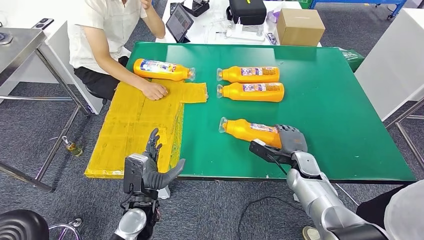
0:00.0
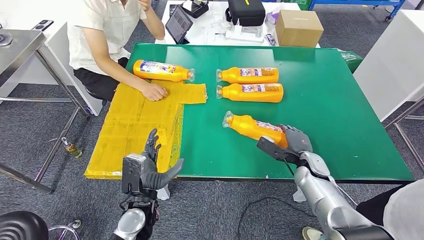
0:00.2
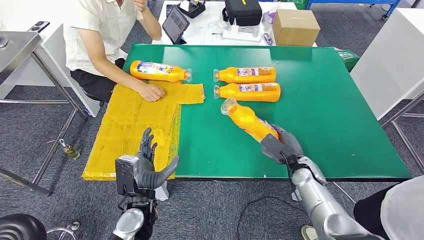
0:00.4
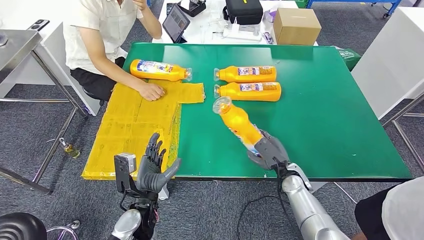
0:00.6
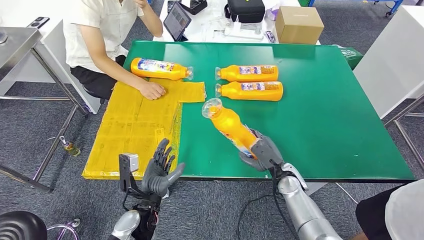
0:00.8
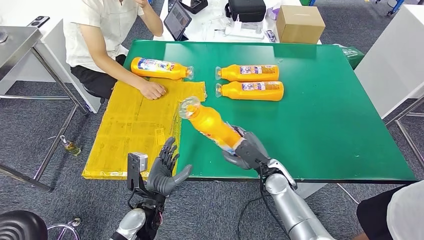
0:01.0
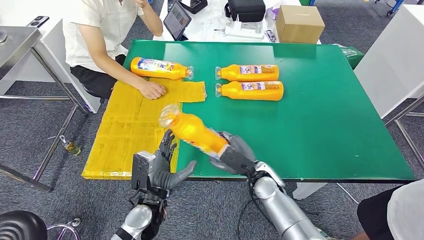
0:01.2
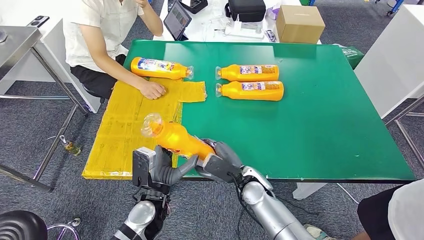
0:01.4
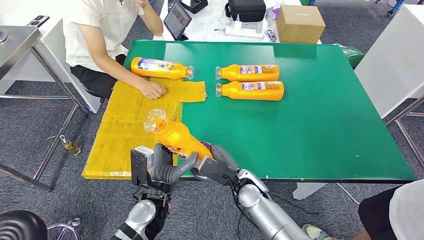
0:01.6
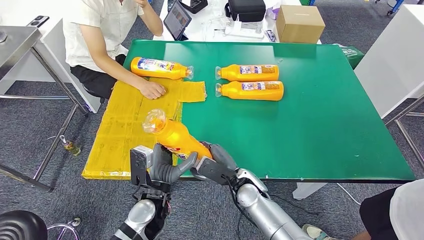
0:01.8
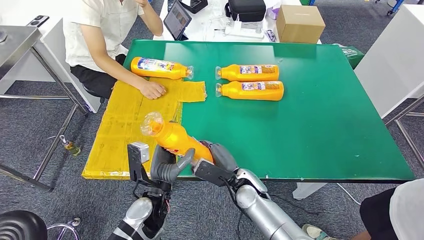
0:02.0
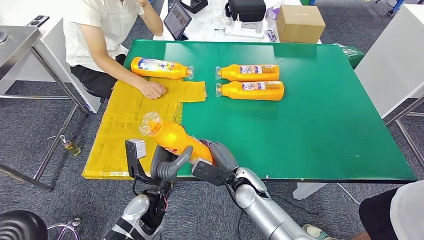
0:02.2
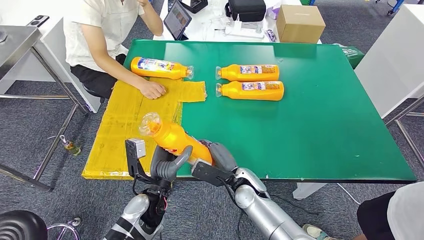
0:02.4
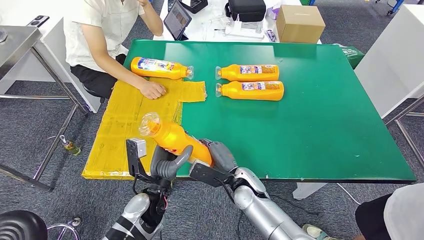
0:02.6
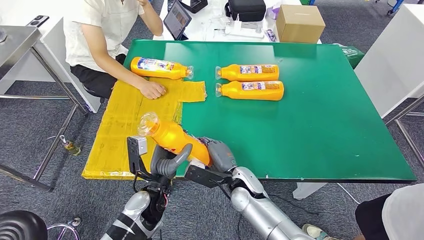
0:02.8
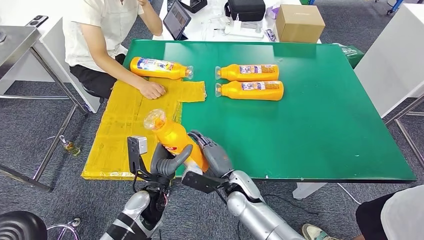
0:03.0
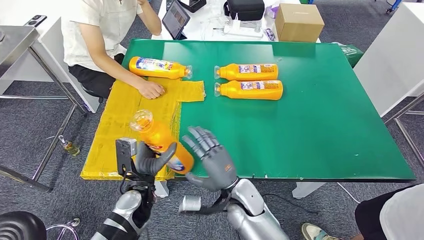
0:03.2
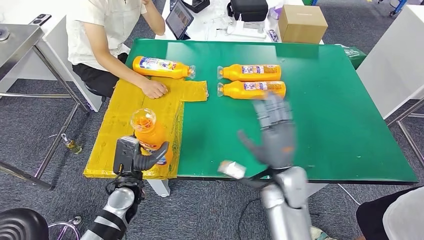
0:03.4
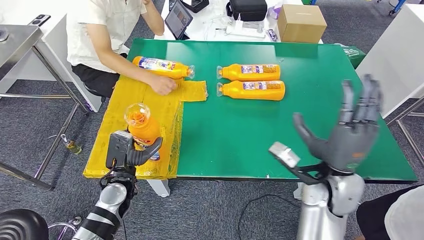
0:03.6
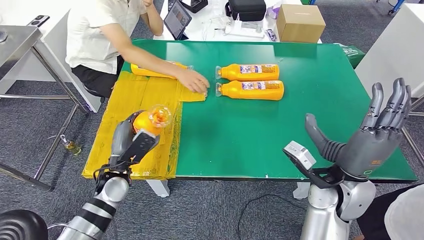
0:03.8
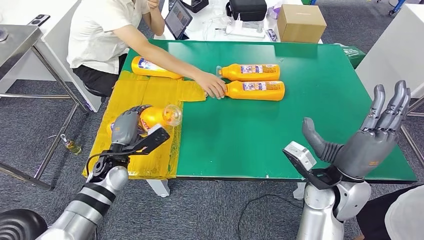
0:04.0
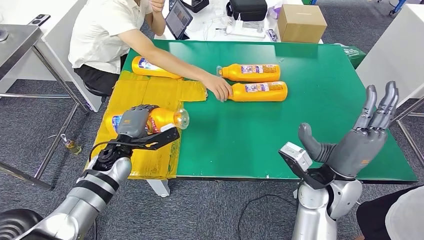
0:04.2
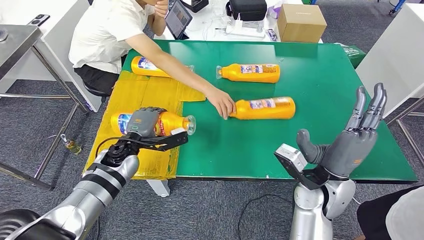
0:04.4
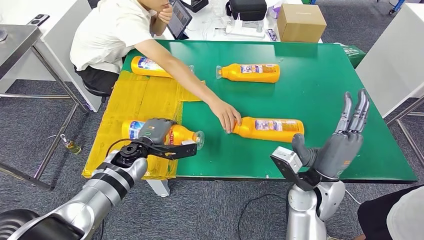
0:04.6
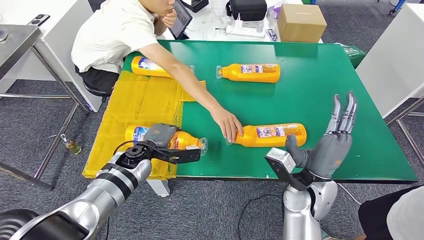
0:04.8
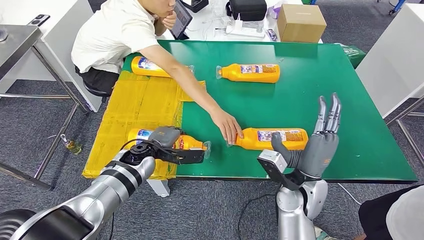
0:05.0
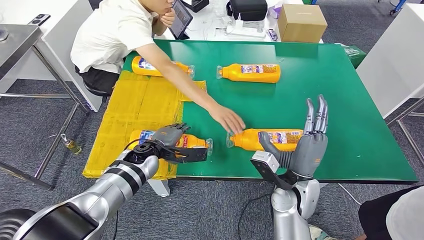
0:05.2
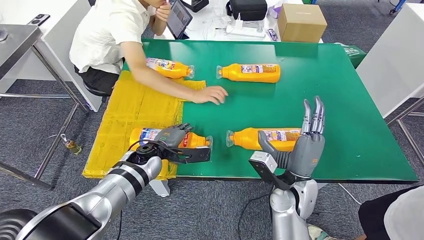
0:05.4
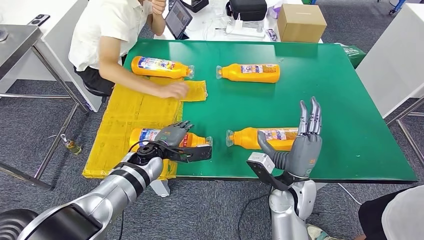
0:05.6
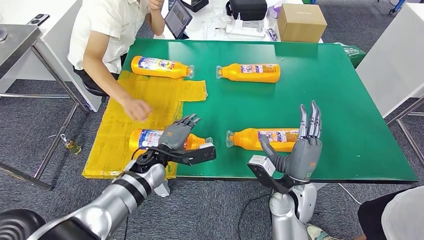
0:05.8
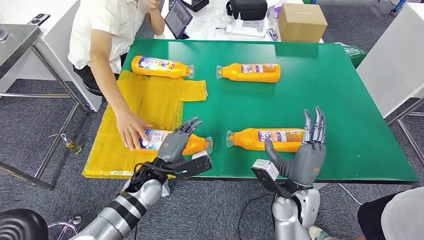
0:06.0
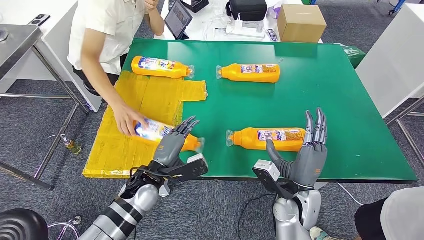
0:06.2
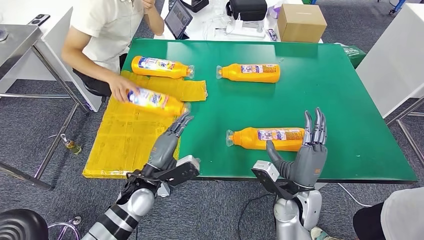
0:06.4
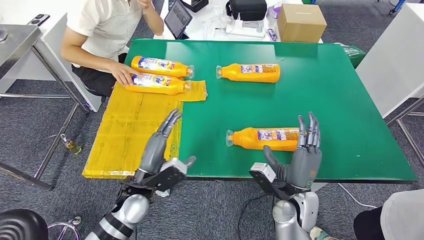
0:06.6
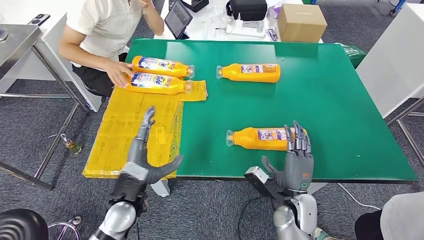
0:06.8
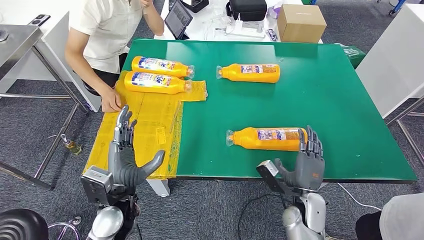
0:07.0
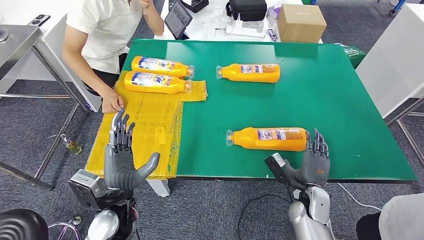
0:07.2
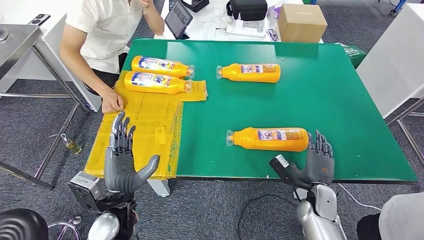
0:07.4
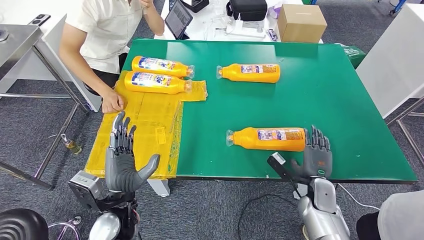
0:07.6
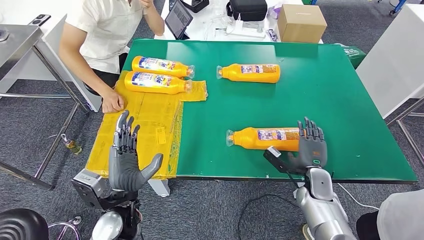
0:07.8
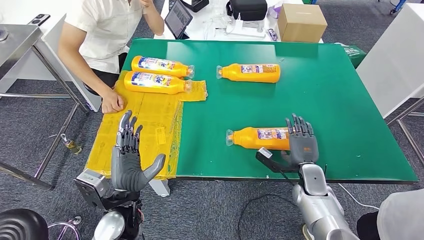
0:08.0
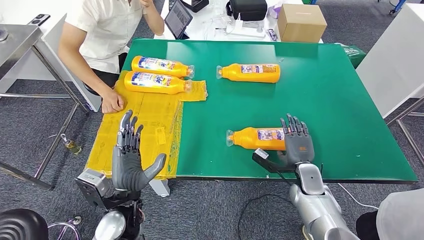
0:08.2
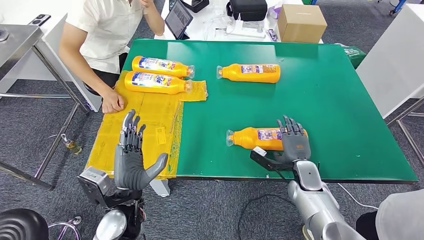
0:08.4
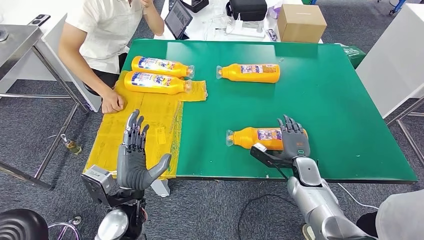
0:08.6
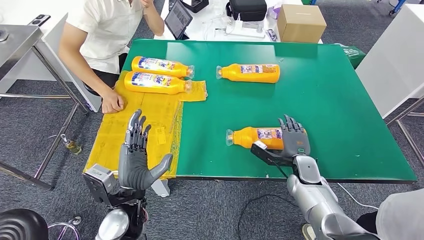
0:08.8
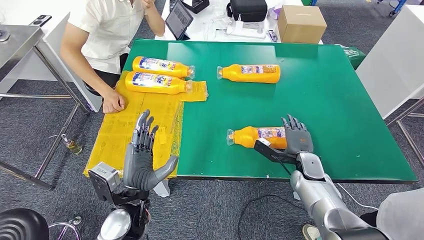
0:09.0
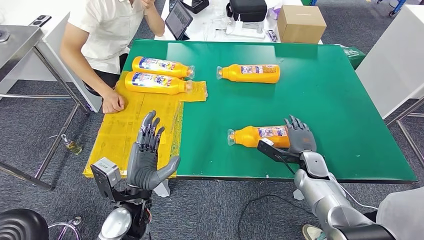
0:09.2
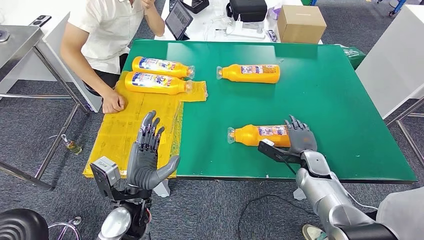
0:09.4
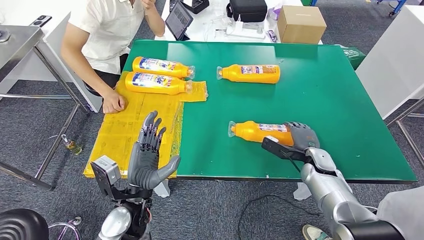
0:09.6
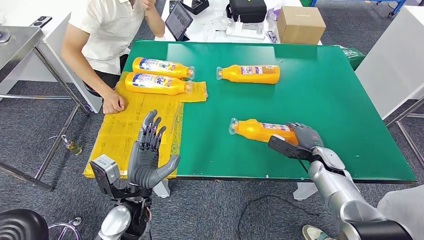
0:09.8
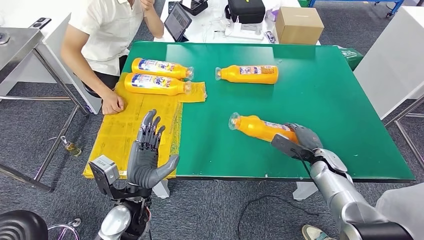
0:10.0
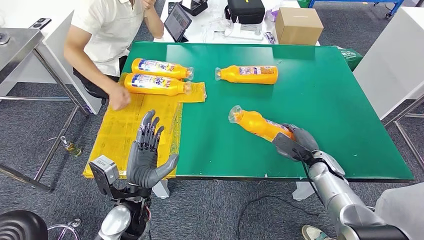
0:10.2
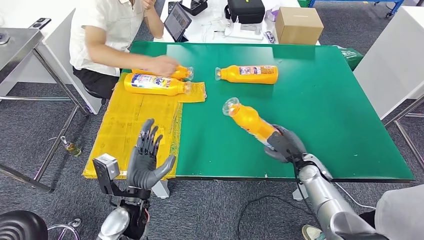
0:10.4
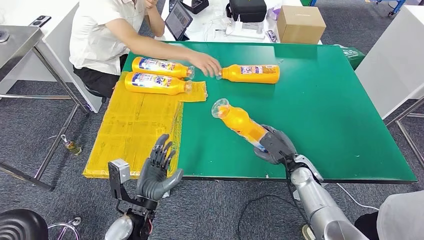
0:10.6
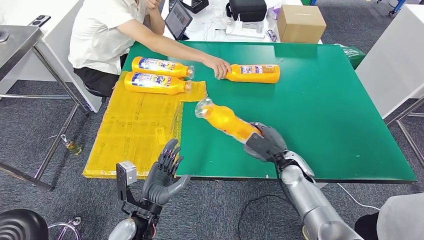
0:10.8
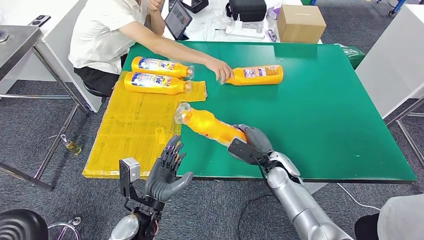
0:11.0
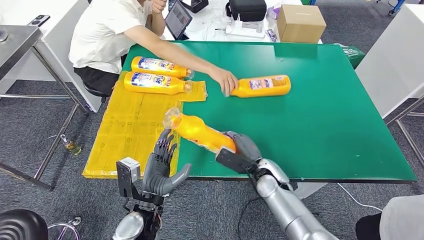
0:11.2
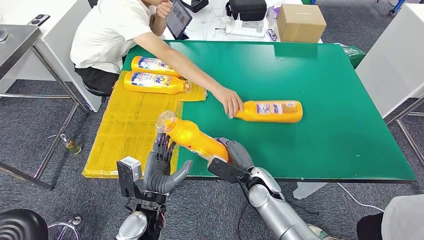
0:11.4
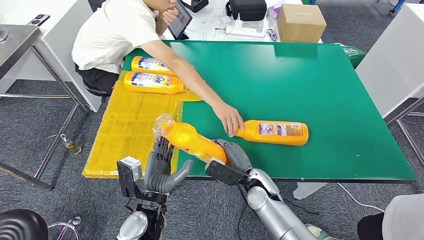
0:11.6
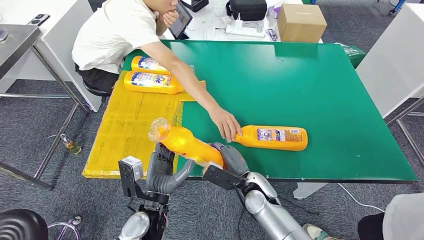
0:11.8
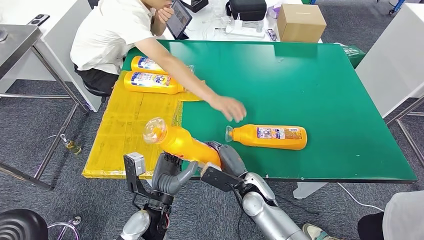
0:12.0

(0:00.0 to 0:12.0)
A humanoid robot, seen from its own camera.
Step, 0:01.2 - 0:06.0: Flip the fast-moving consumer goods bottle to the front side.
Step, 0:06.2 - 0:10.4: Pick up the fast-moving consumer goods bottle from the table.
0:01.6 - 0:03.0: The hands stay close to where they were, moving slightly.
0:07.6 - 0:09.0: The right hand travels forward by approximately 5 cm.

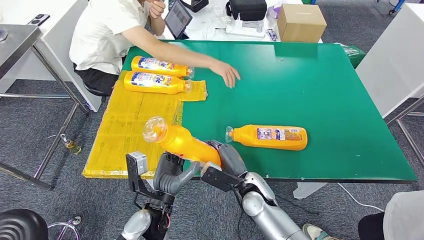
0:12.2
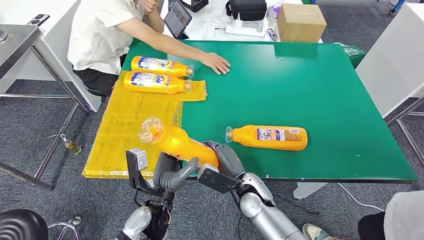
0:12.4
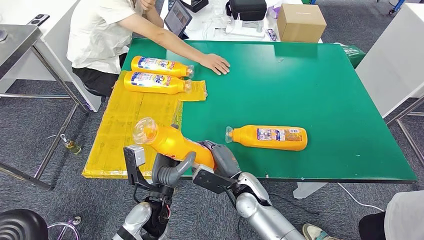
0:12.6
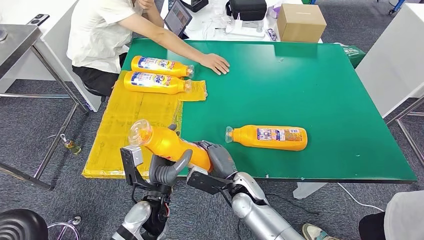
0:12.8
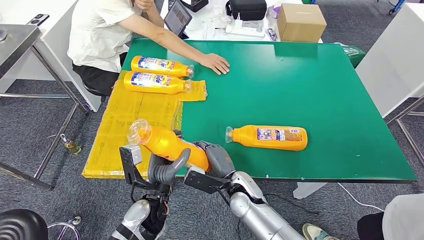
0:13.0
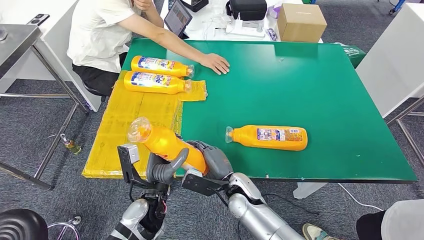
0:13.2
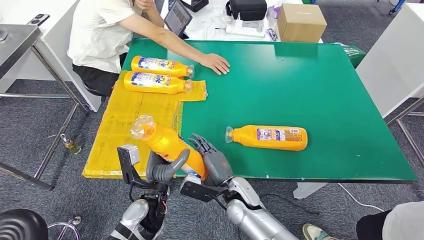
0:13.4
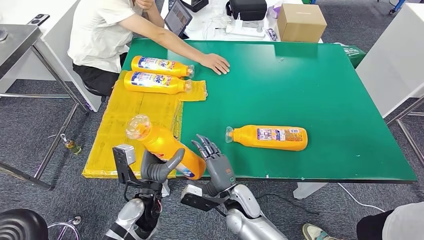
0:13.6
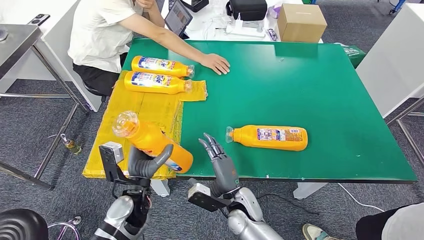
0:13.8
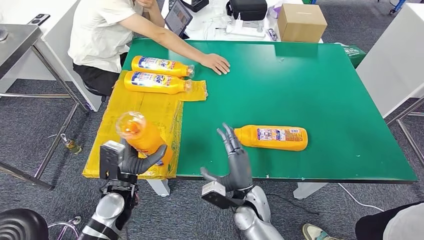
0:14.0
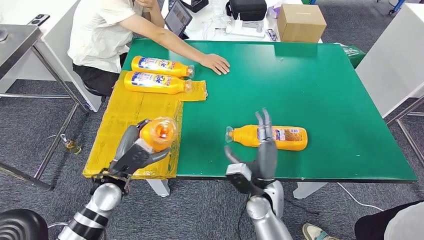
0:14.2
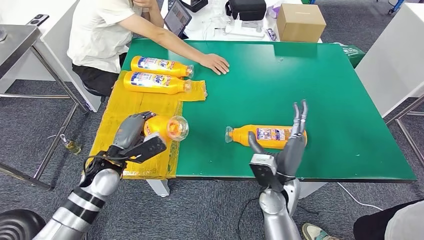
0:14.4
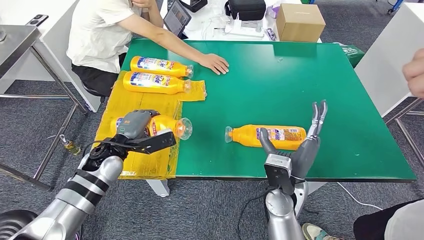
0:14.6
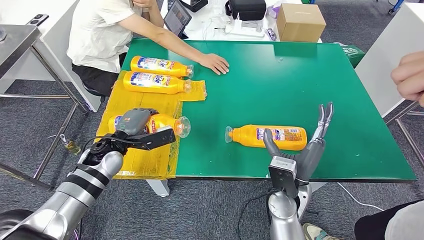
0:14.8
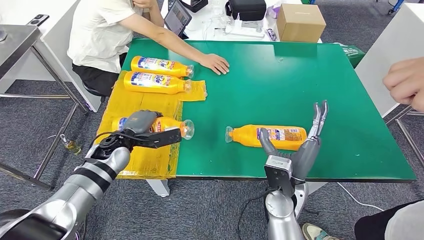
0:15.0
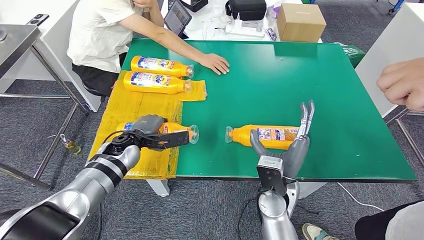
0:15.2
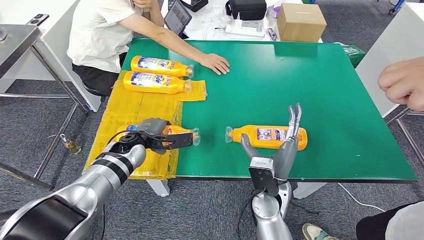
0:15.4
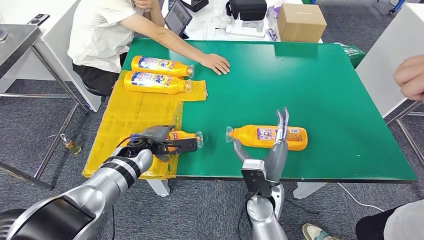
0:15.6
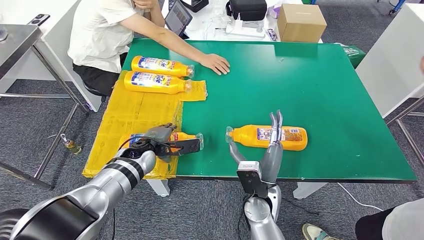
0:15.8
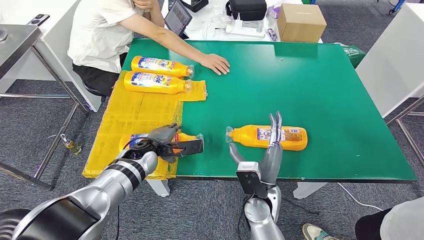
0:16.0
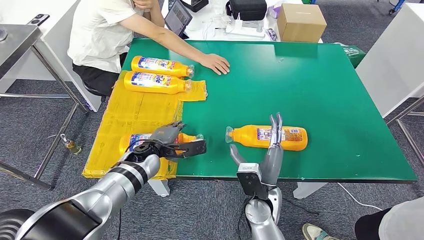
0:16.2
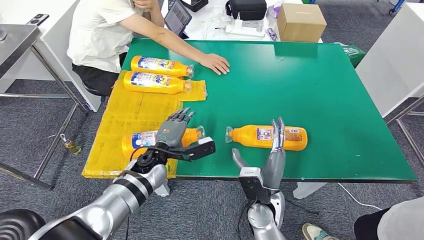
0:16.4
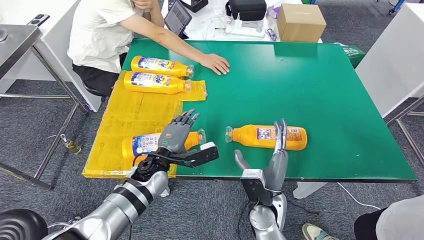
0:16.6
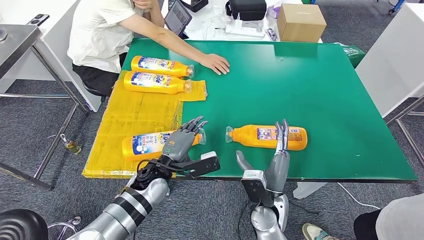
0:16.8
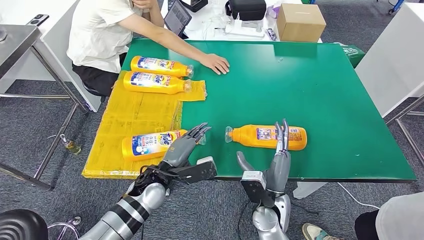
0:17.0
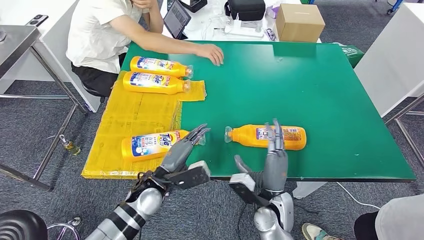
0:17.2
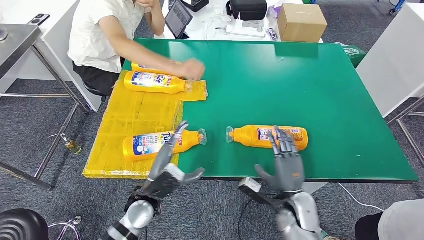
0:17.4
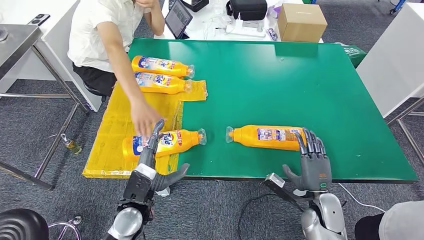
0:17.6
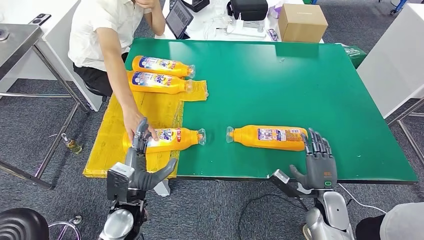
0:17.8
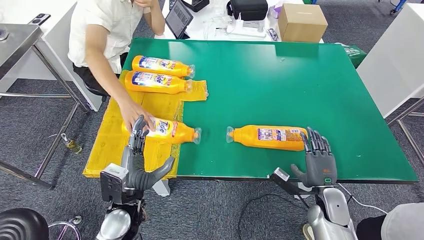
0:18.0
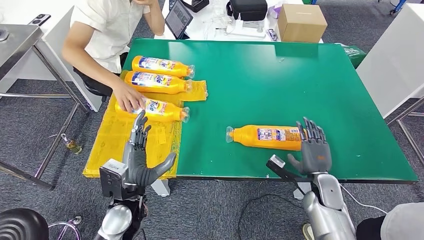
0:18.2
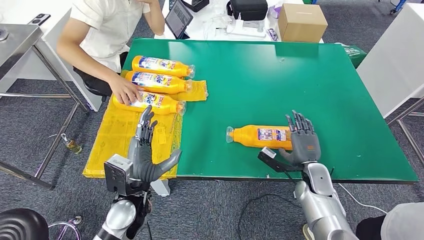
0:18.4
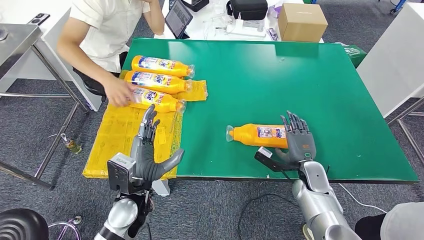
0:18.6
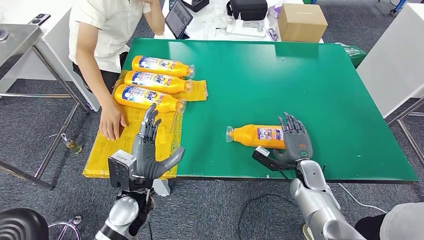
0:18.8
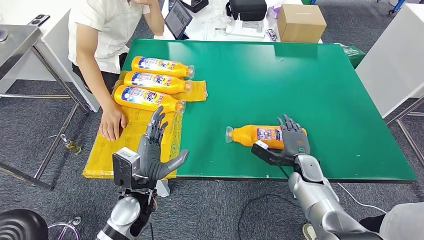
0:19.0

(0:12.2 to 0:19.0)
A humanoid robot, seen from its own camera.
Step, 0:12.2 - 0:17.8: Flip the fast-moving consumer goods bottle to the front side.
0:12.2 - 0:13.6: The right hand changes place by roughly 5 cm.
0:13.6 - 0:15.0: The right hand shifts roughly 15 cm upward and to the right. Meanwhile the left hand heads forward and to the left, covering about 15 cm.
0:15.0 - 0:16.2: The left hand heads to the right, covering roughly 10 cm; the right hand moves roughly 5 cm.
0:16.2 - 0:17.6: The right hand is displaced to the right by some 20 cm; the left hand goes some 15 cm backward.
0:17.6 - 0:19.0: The right hand moves forward, some 10 cm.
